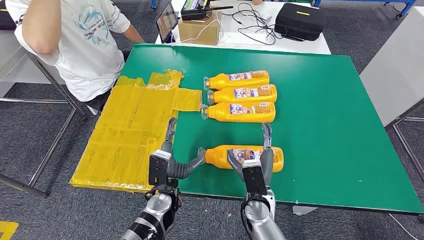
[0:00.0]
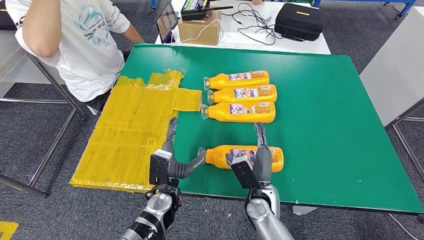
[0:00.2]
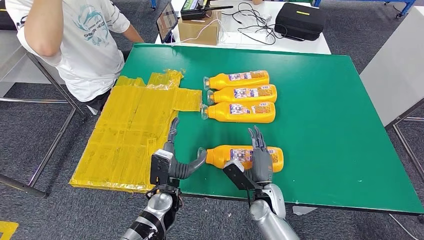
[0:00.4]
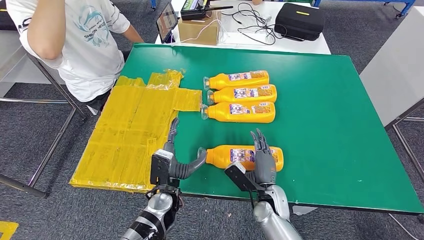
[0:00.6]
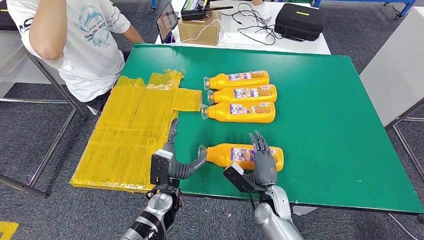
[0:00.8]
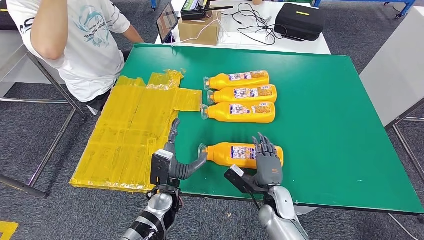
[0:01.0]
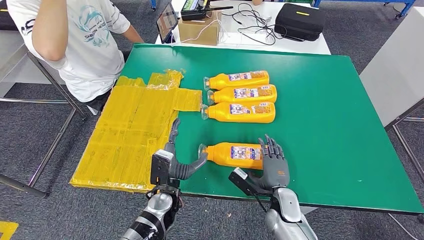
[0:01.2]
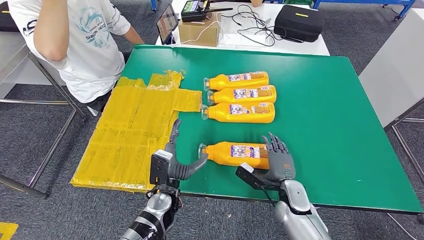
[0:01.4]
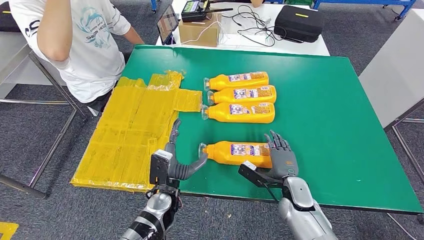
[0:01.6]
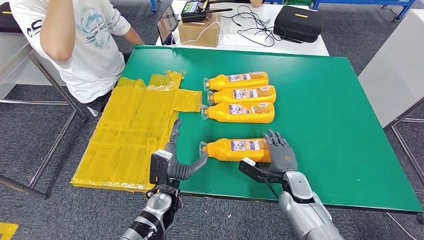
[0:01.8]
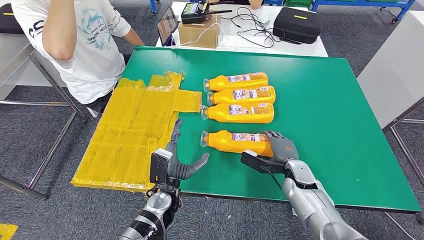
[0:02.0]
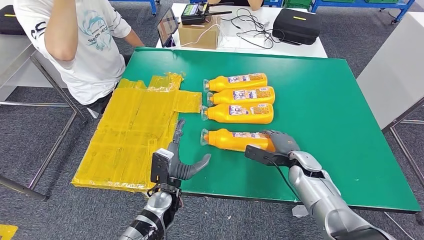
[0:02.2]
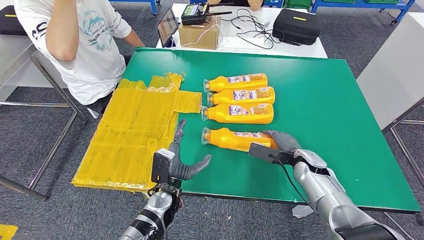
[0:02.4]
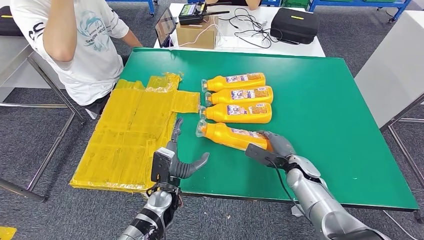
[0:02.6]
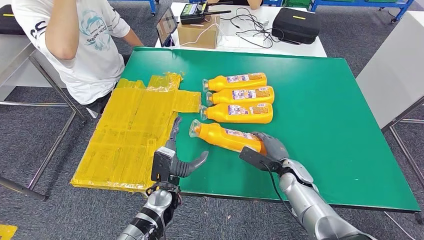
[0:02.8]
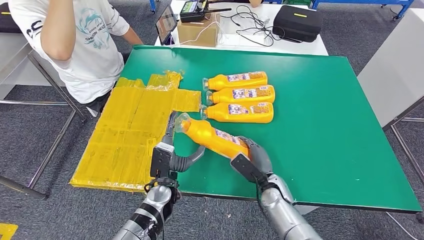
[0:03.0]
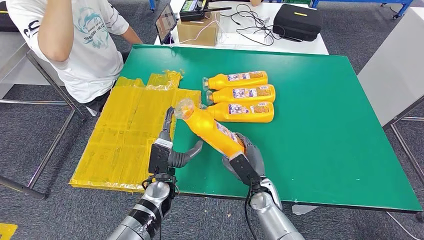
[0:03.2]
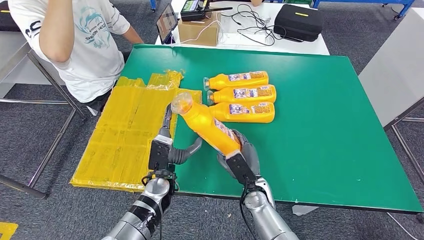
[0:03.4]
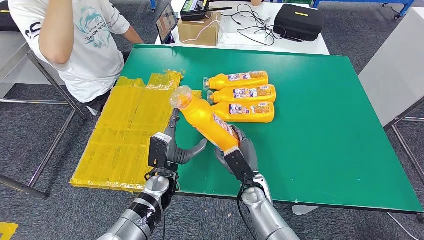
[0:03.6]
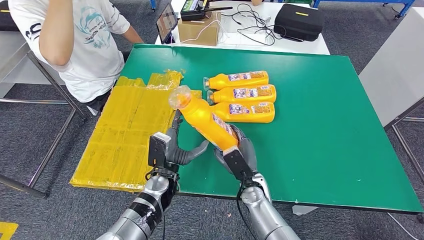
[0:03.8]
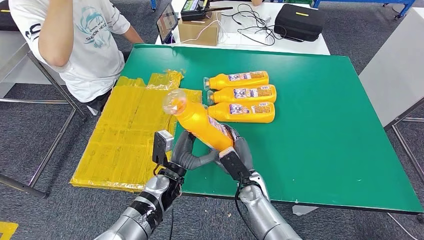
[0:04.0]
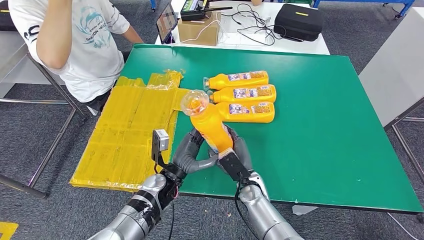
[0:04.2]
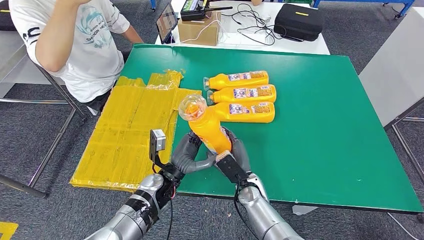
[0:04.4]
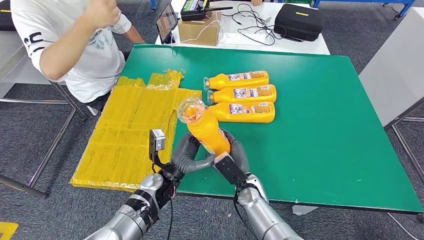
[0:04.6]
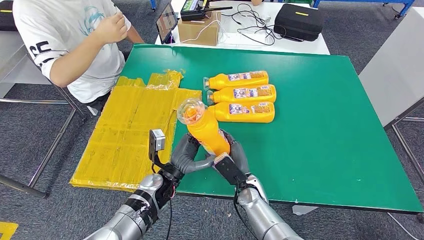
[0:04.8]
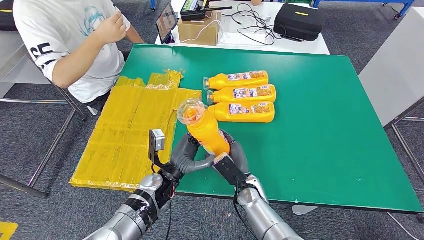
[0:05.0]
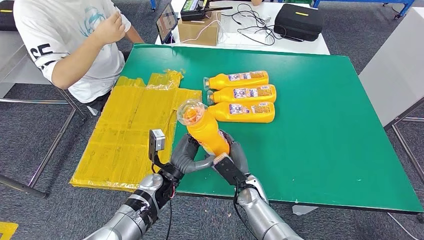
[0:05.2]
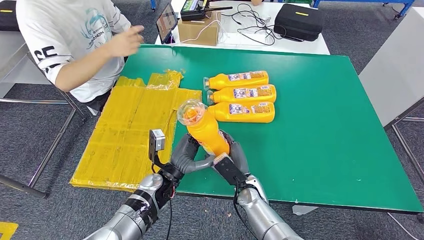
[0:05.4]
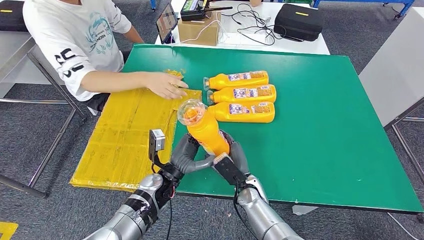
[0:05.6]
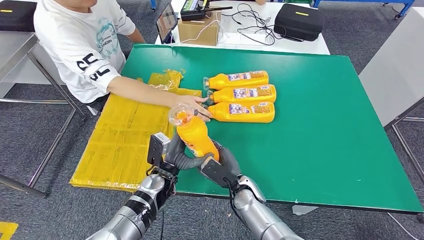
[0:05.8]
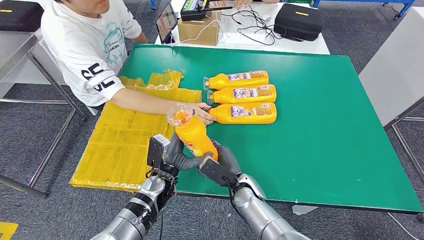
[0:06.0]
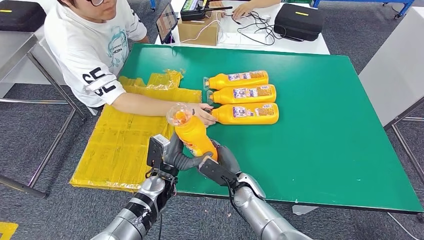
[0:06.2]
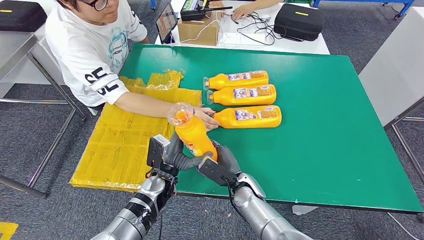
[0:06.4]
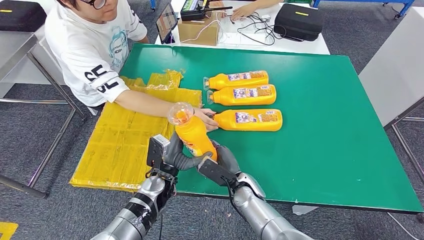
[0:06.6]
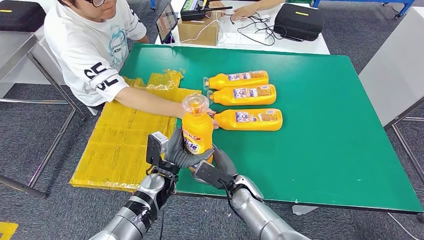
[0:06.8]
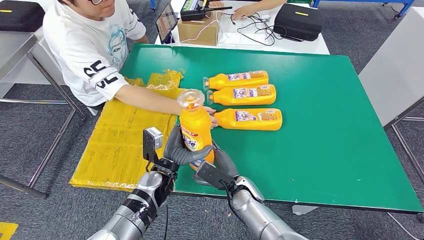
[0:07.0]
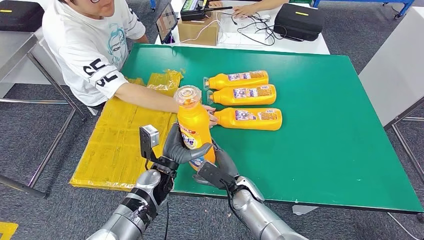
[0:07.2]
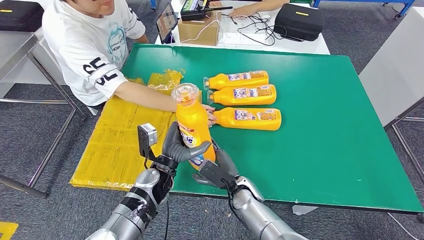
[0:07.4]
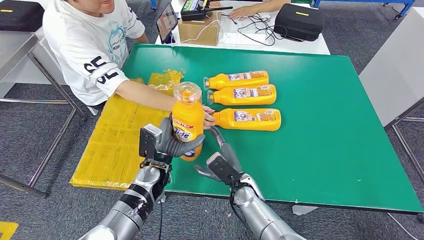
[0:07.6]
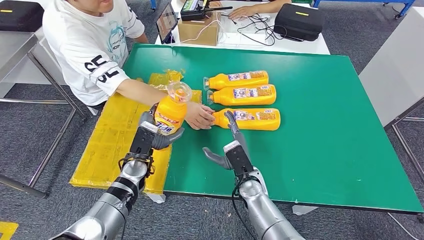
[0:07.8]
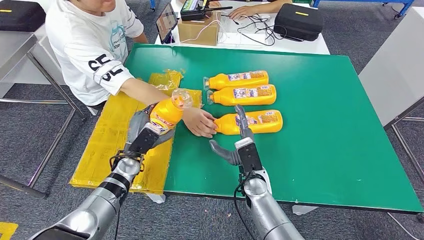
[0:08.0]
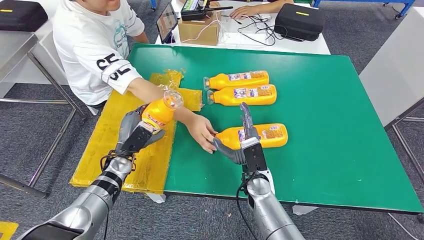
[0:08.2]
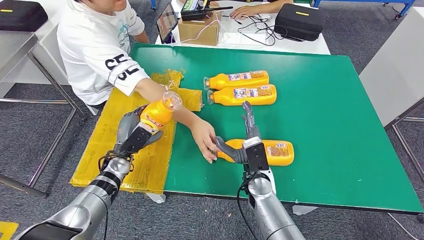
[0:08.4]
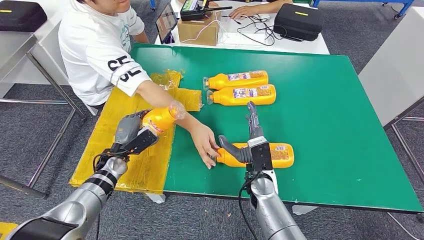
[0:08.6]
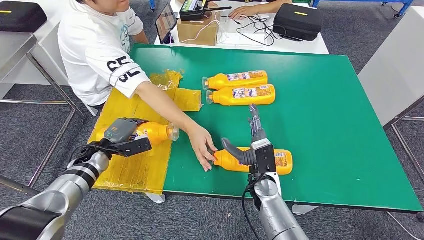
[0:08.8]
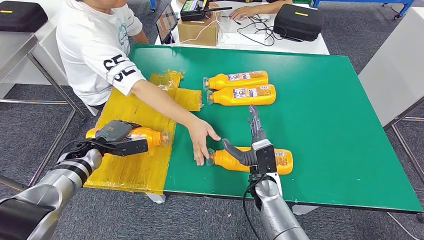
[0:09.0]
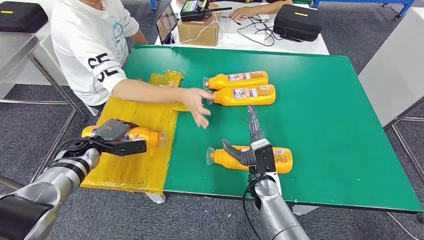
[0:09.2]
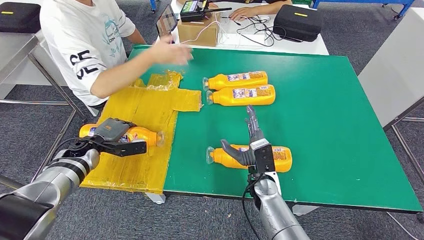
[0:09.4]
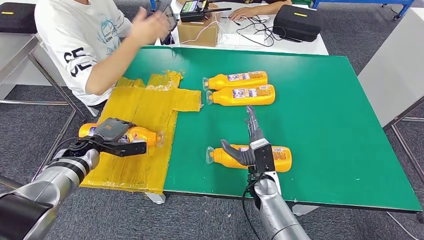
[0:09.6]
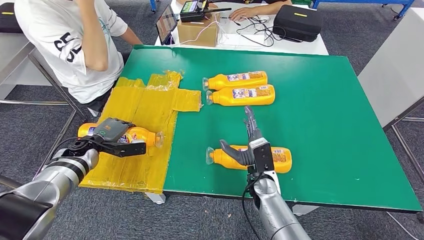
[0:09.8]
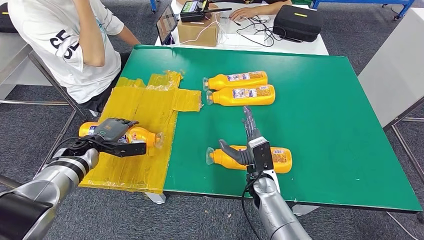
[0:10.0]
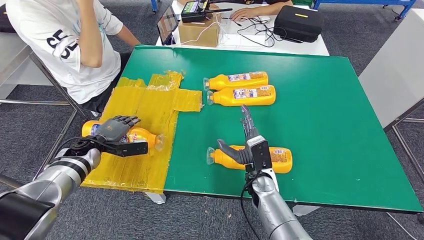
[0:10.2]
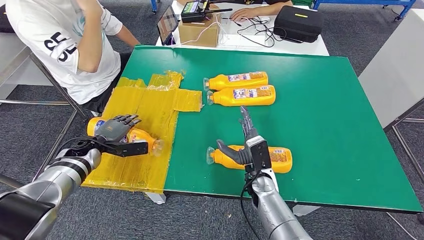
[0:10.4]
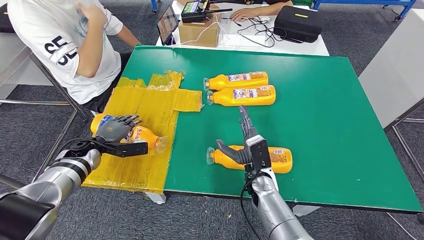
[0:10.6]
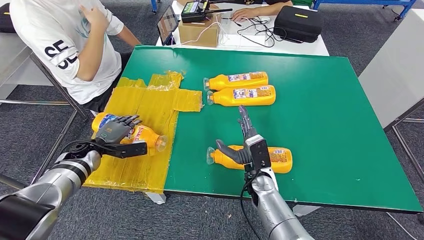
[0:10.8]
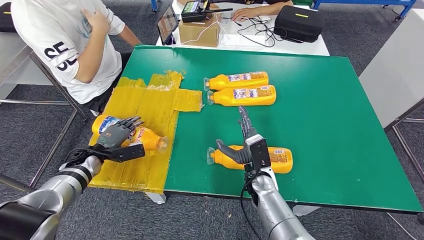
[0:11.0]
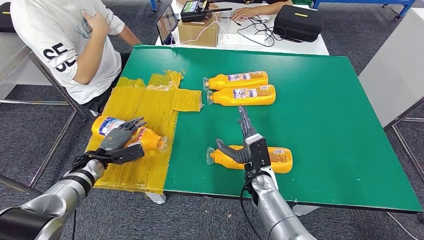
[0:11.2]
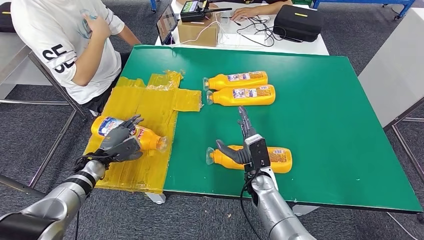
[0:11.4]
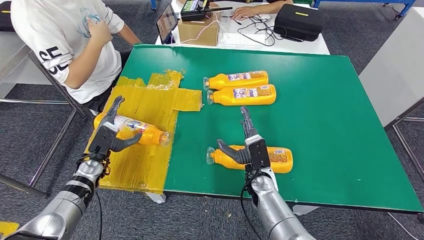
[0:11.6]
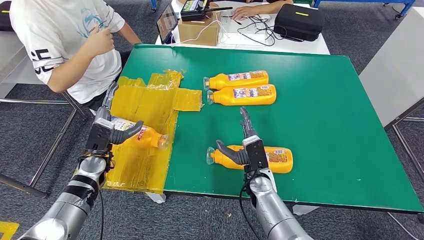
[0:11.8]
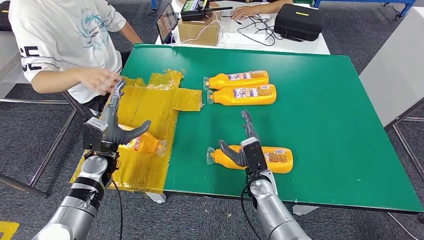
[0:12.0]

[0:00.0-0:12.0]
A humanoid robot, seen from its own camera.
Step, 0:00.0 to 0:04.8: Take the fast-moving consumer goods bottle from the table.
Step, 0:05.0 to 0:10.8: Flip the fast-moving consumer goods bottle to the front side.
0:01.6 to 0:03.0: The right hand goes some 5 cm to the left.
0:03.0 to 0:04.4: The right hand travels to the left by approximately 10 cm.
0:06.0 to 0:07.6: The hands move only a little.

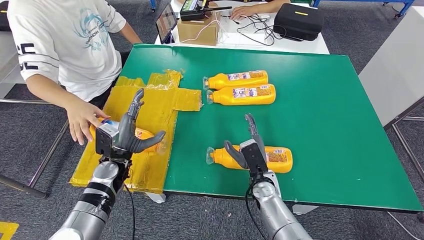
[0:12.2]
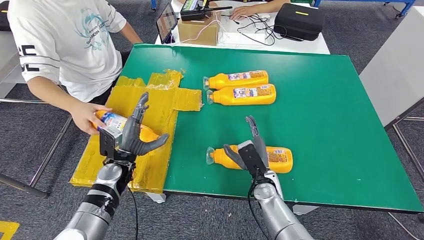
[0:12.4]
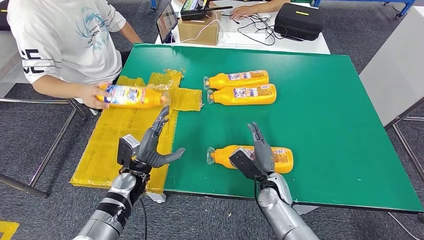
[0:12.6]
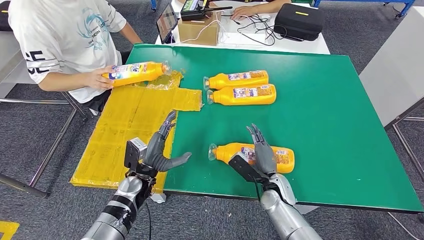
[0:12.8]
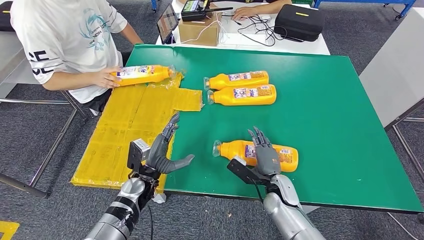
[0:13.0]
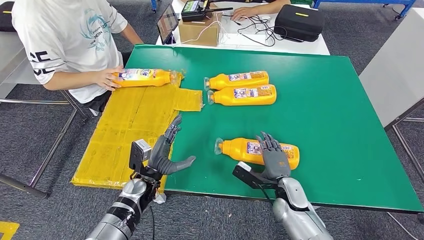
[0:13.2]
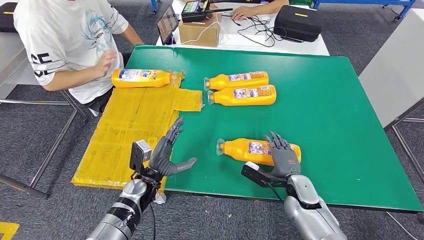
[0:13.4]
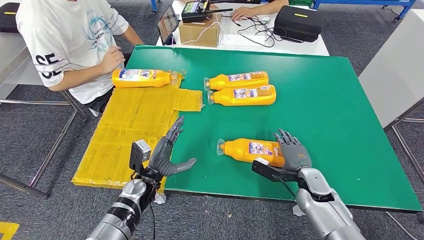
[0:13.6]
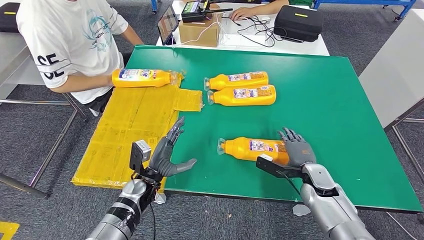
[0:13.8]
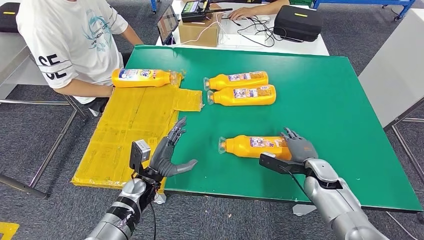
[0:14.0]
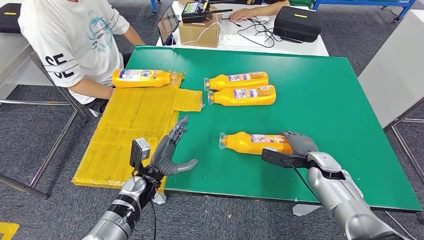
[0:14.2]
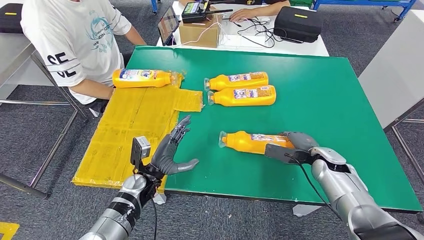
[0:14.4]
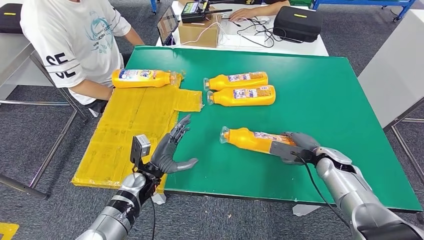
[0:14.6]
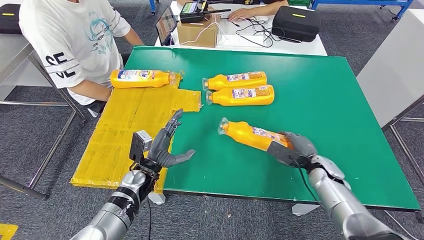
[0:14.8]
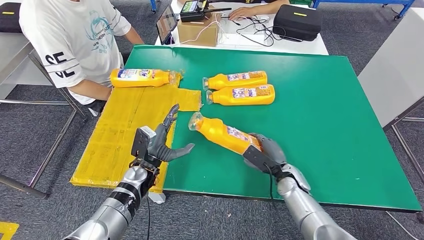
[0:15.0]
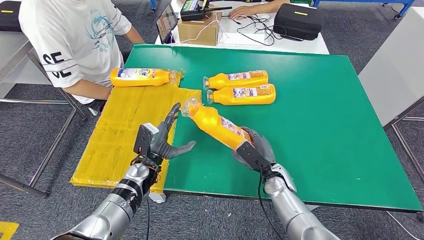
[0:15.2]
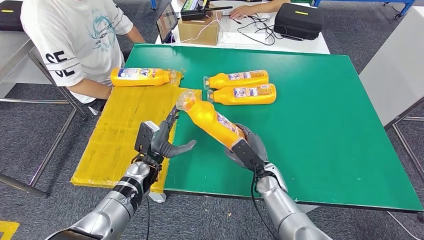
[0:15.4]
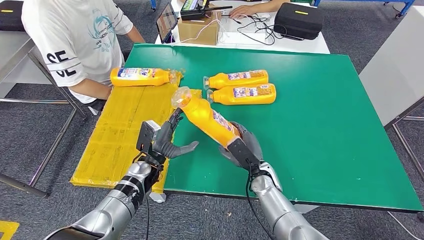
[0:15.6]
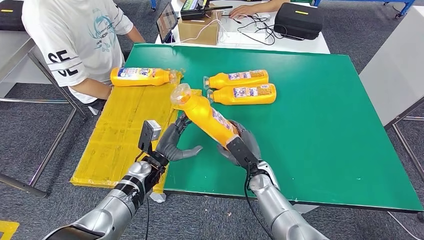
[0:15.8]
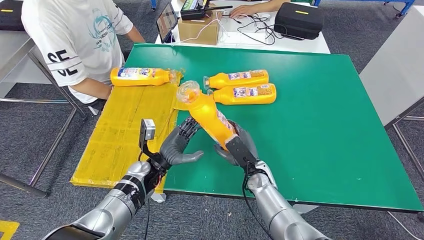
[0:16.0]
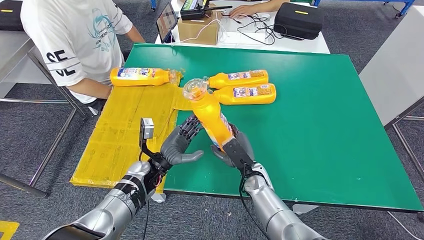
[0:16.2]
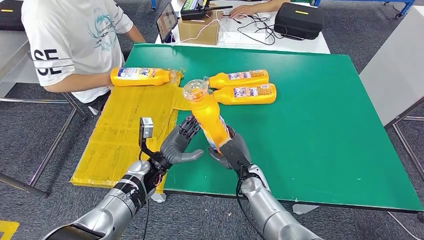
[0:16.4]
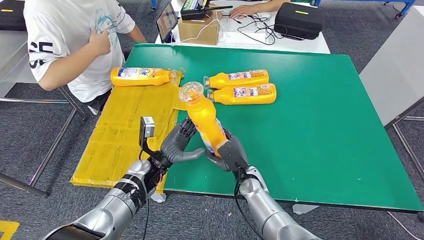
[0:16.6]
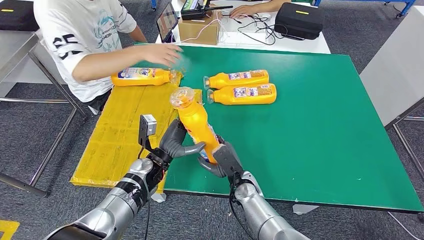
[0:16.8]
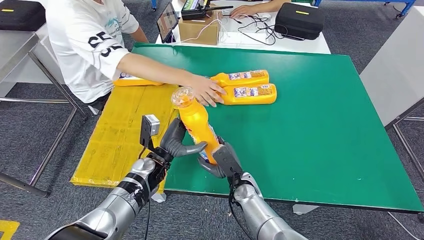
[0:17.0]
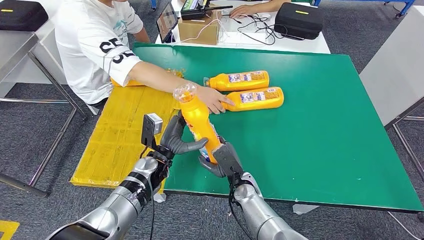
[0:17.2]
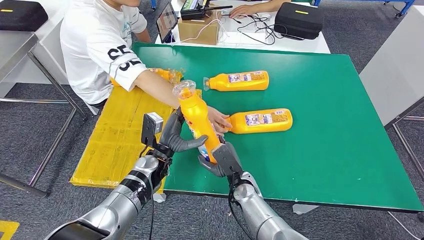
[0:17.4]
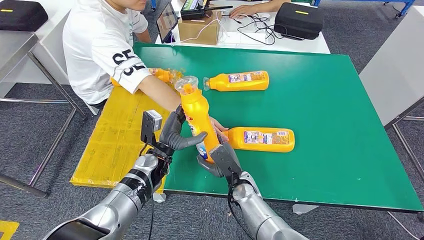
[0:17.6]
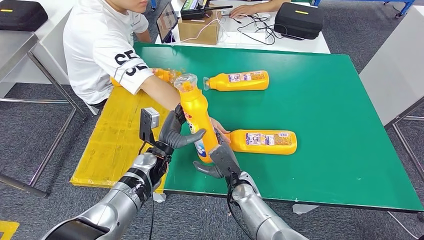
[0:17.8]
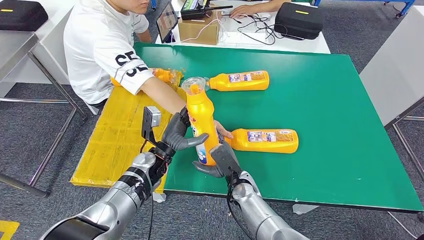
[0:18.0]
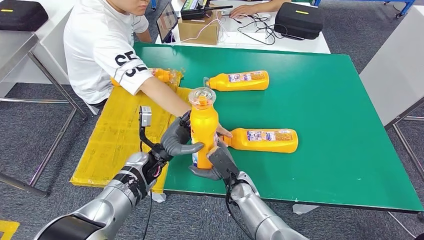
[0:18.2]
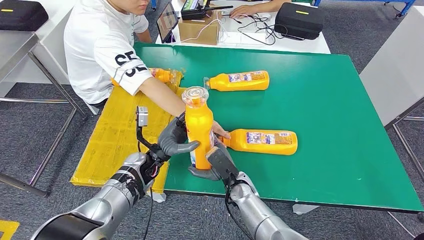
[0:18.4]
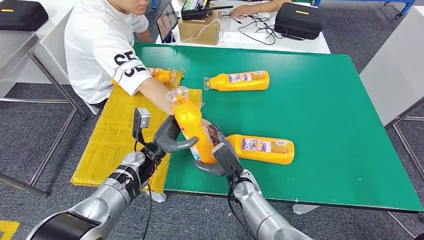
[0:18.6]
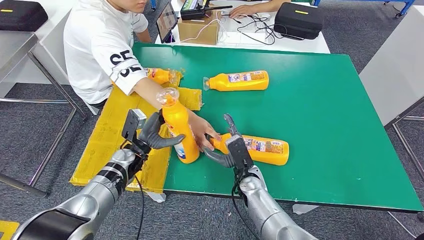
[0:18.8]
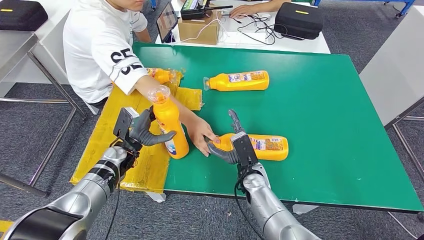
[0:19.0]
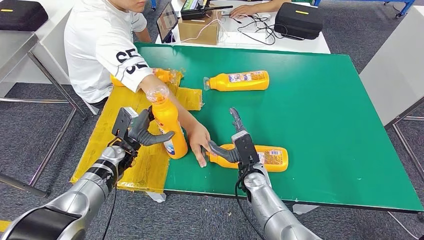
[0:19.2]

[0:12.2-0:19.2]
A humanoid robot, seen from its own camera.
Step, 0:12.2 to 0:18.0: Pick up the fast-moving consumer goods bottle from the table.
0:17.8 to 0:19.2: The left hand moves to the left, about 10 cm.
